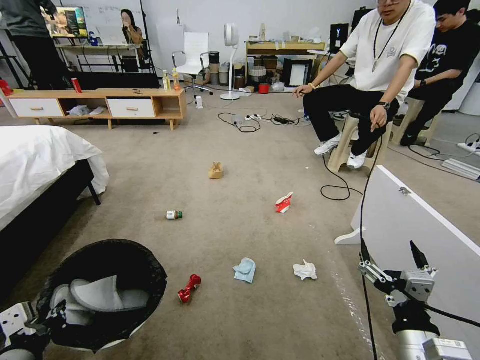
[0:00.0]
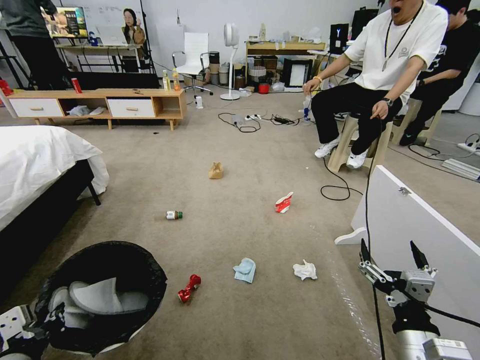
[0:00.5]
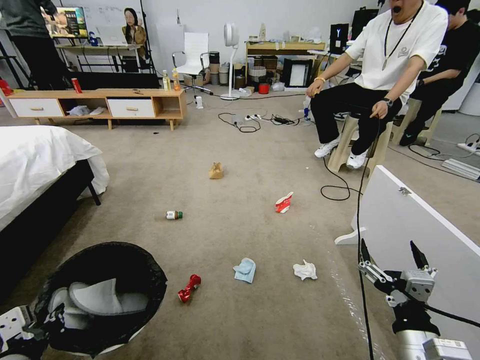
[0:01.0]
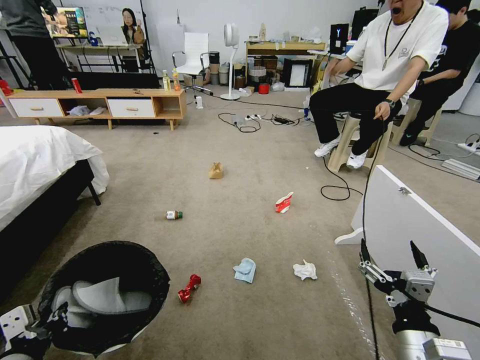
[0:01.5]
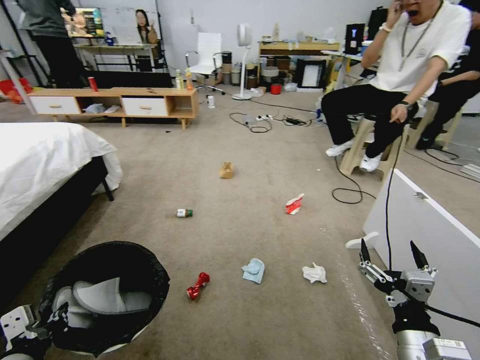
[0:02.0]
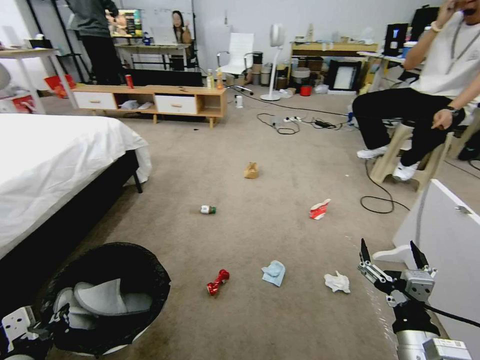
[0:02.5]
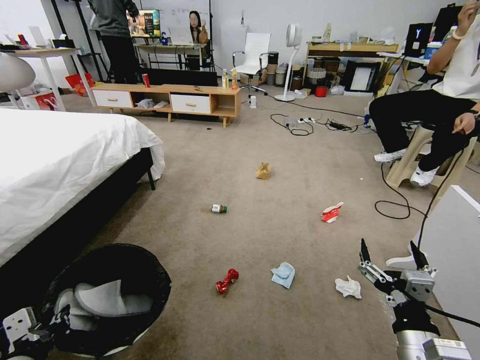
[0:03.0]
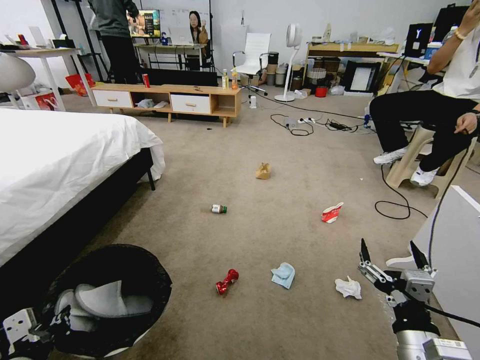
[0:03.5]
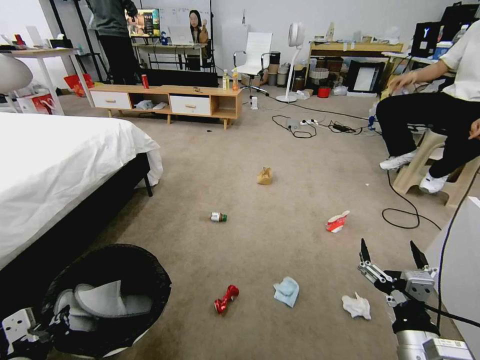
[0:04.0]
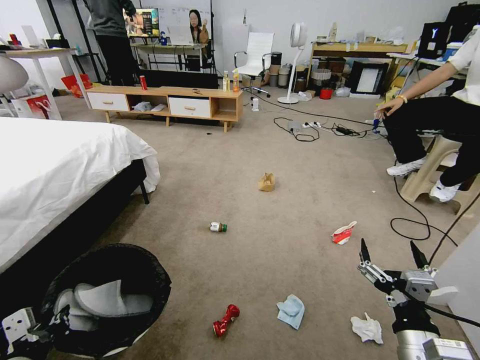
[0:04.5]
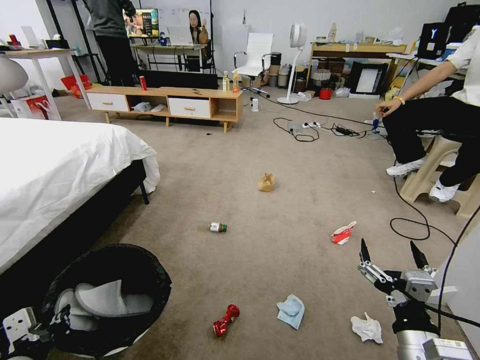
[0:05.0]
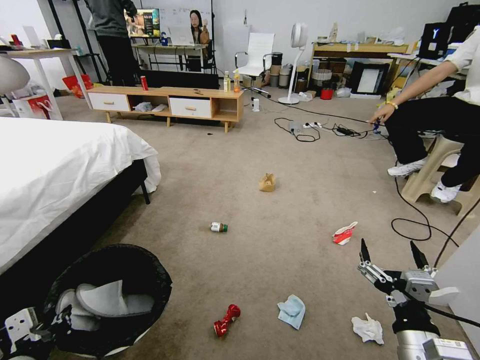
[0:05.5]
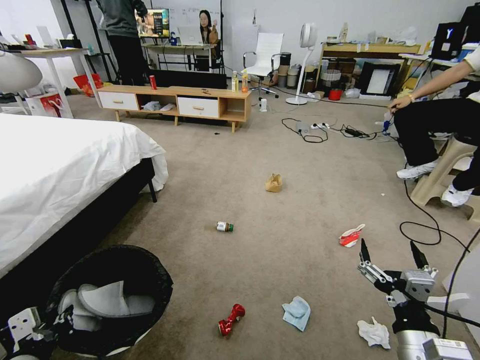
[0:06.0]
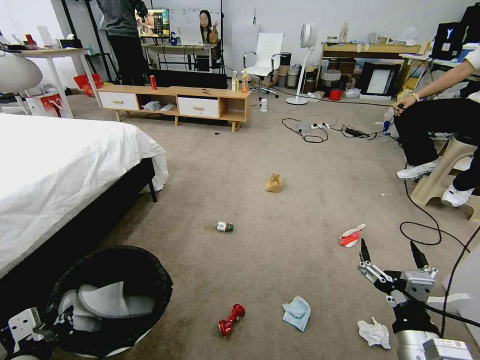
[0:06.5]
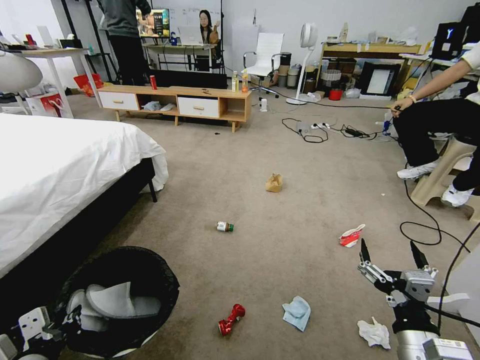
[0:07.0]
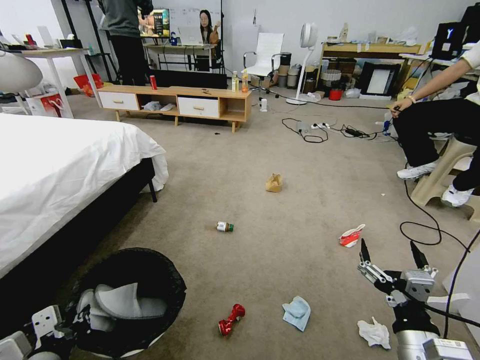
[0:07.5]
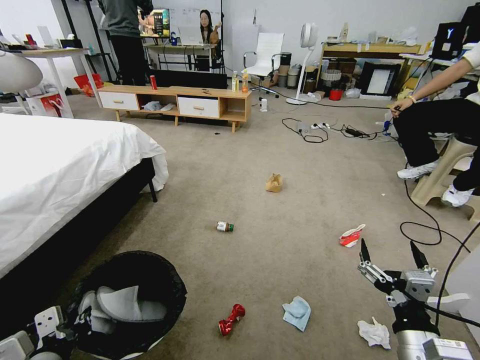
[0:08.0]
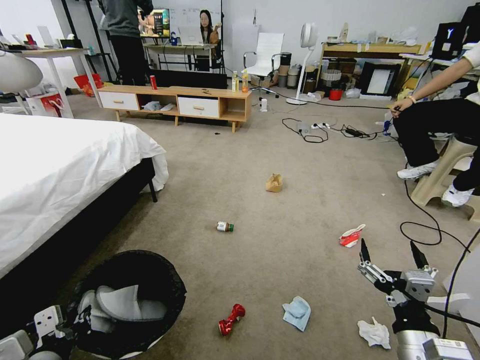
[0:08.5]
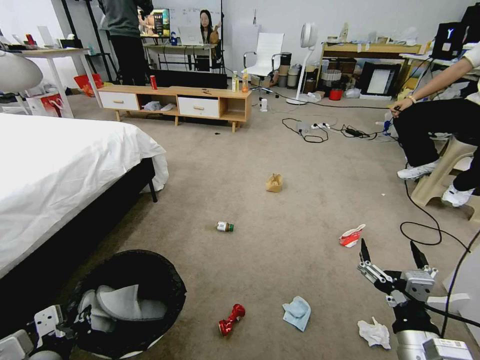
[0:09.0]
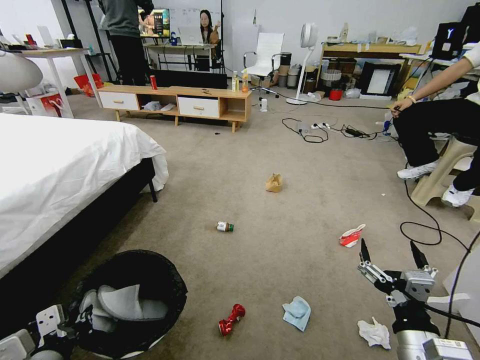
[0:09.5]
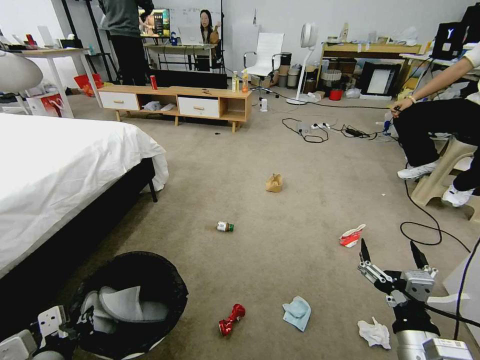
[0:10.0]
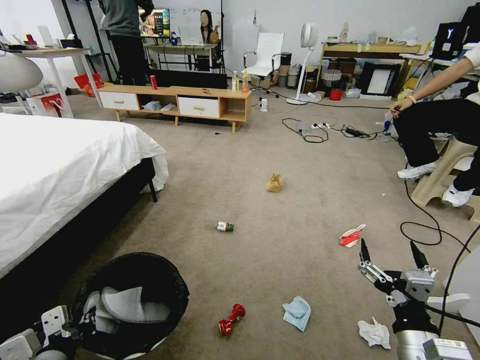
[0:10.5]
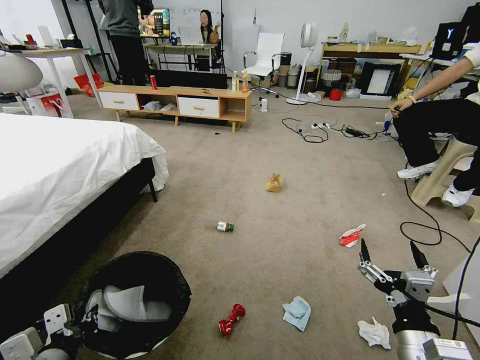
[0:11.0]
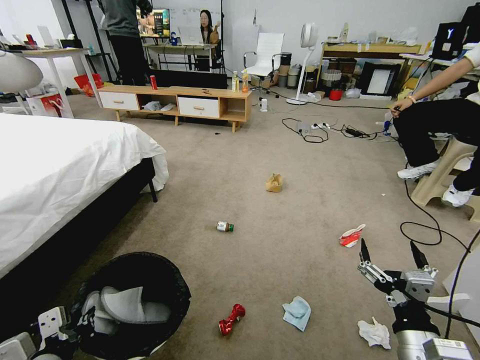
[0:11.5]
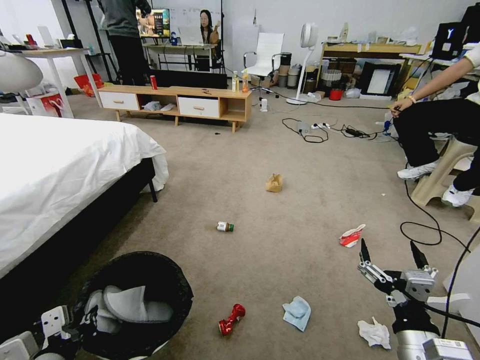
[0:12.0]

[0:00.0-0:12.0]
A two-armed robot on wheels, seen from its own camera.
Task of the whole recording: Pick up the trash bin and place the garbage on the floor into it.
0:06.0 to 0:08.0: The grippers stay close to where they were, moving slightly.
0:08.0 to 0:12.0: The two grippers keep their place.

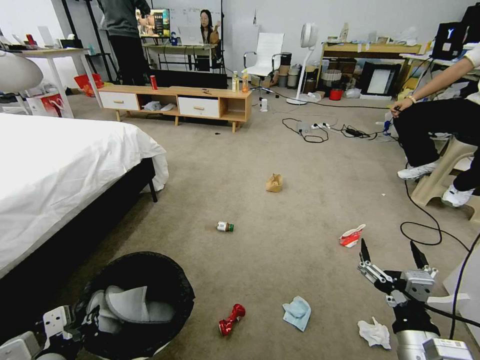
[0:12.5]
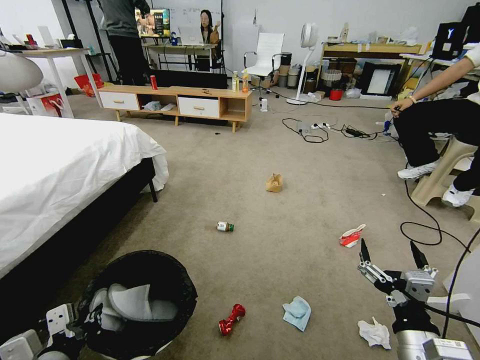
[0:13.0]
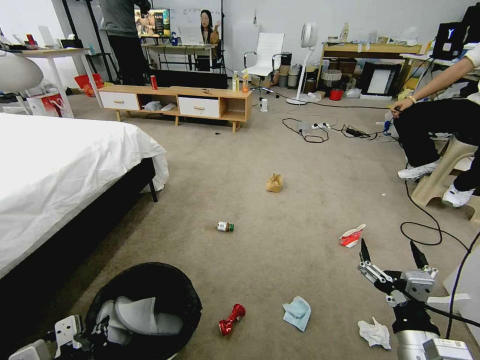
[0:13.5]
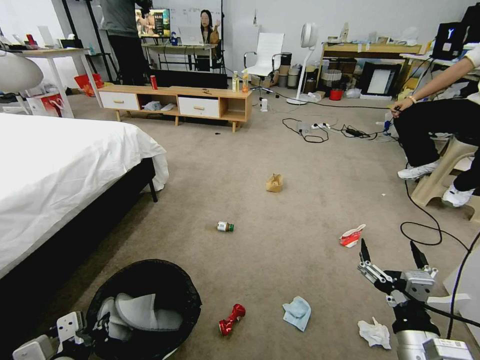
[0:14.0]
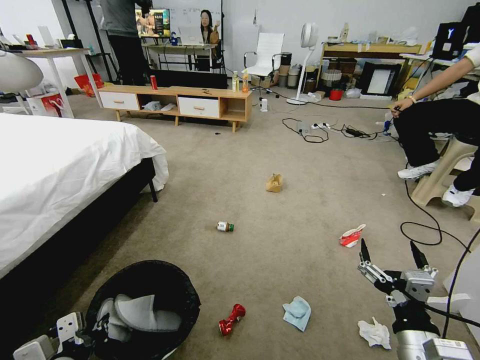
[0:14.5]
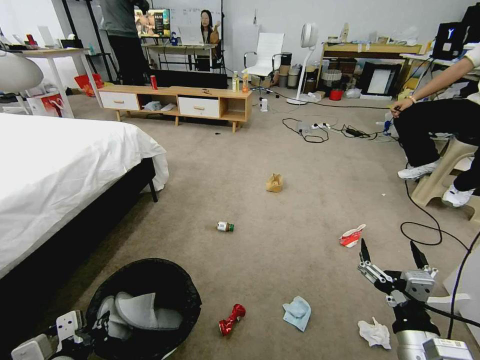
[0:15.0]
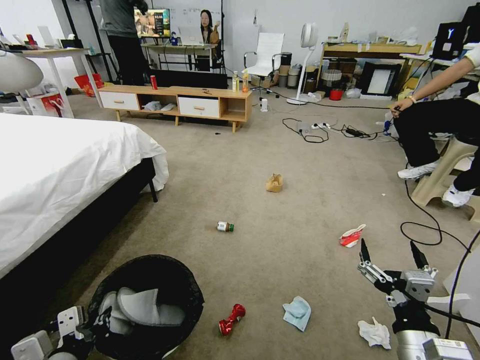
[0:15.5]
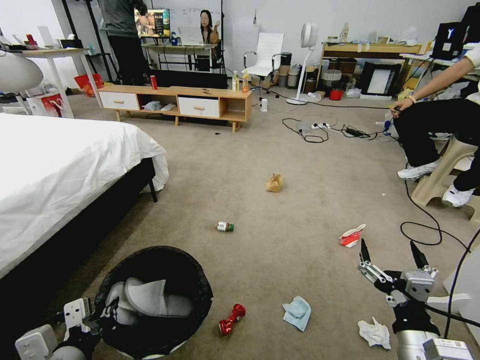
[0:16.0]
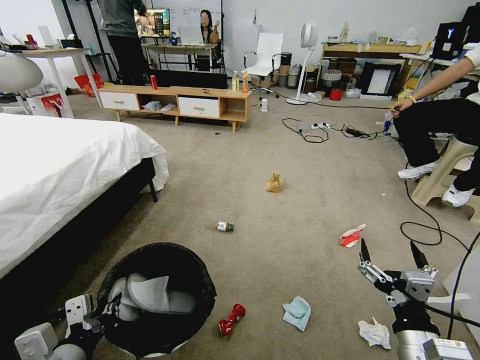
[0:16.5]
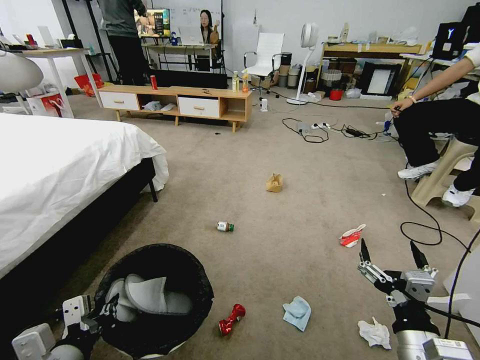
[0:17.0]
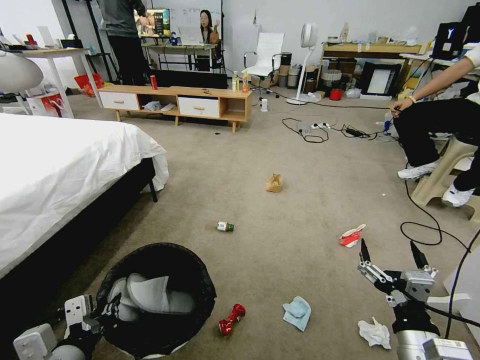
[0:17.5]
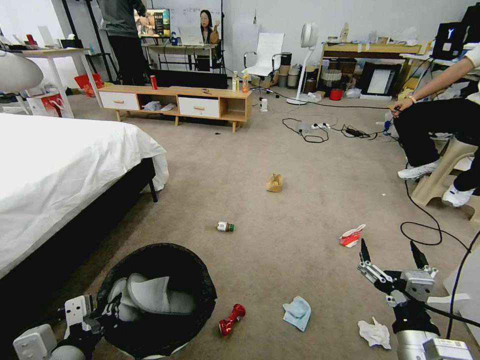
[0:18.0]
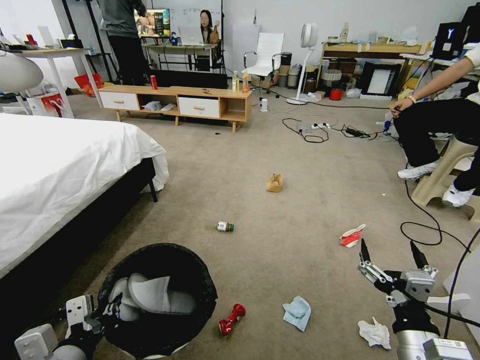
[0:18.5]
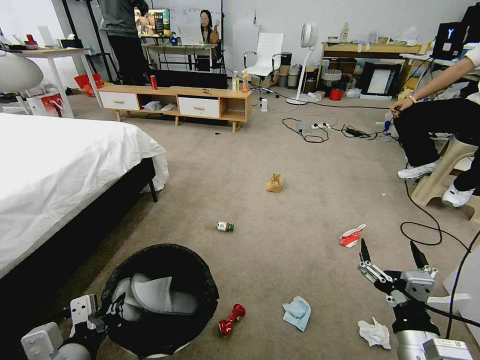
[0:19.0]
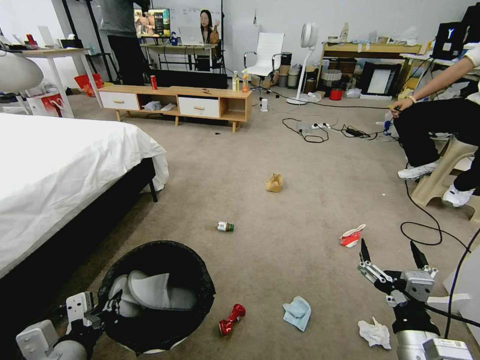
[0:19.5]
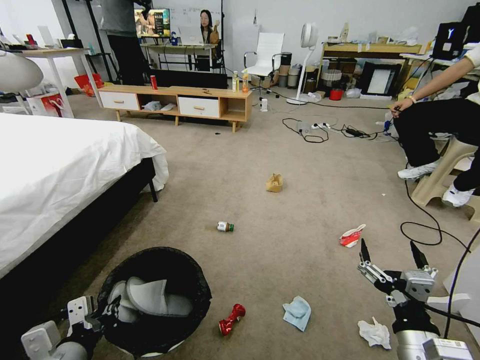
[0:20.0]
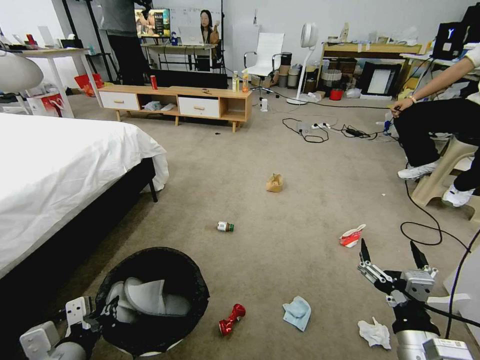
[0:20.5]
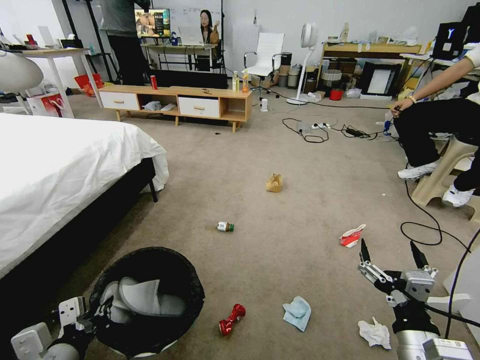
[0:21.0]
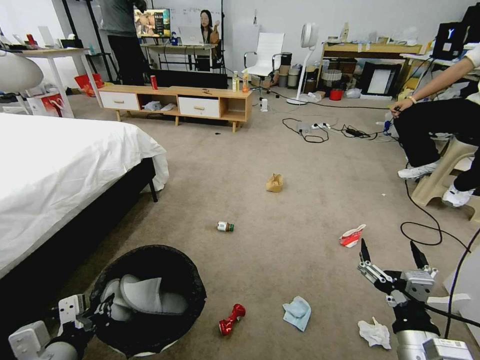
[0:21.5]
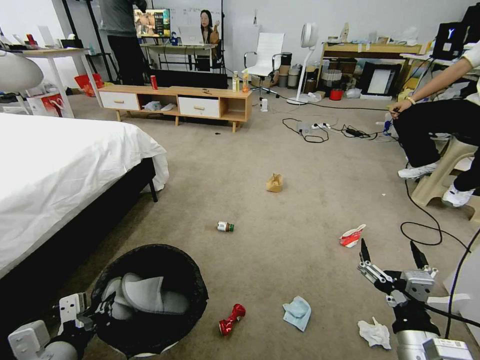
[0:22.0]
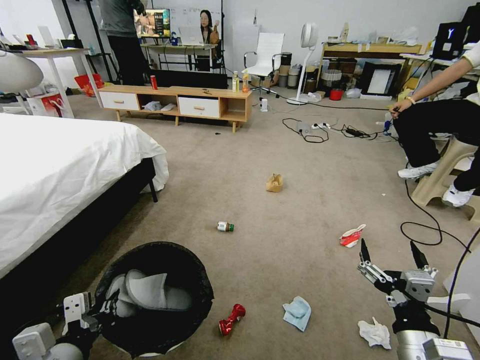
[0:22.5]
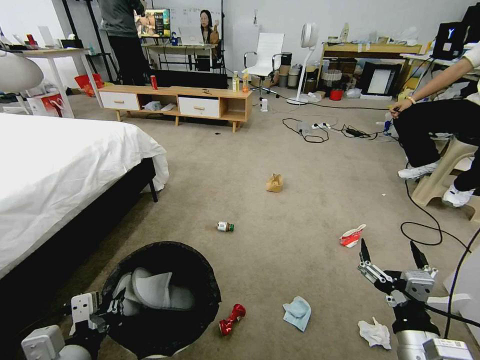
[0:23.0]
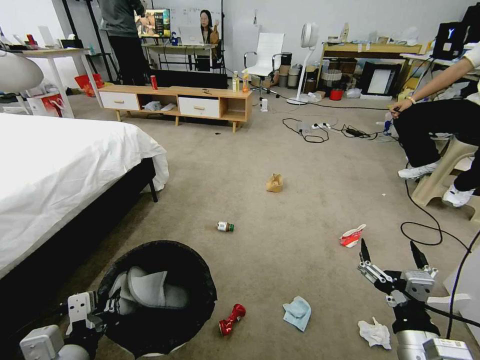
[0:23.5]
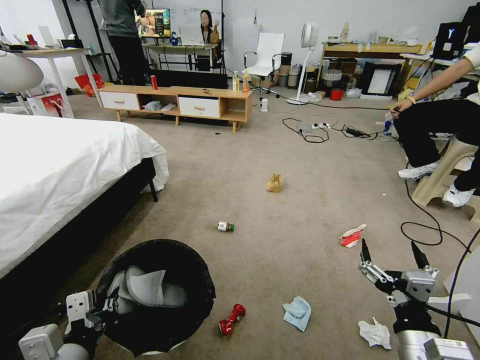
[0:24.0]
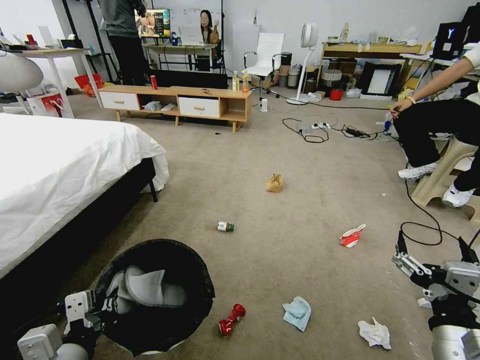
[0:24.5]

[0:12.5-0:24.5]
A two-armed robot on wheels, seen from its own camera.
Task of the whole recording: Pick up the trash bin and place the garbage on the floor into it.
0:12.5 to 0:16.5: The grippers make only small movements.
0:16.5 to 0:18.5: Neither gripper changes place.
0:18.5 to 0:22.5: There are only small adjustments of the grippers.
0:22.5 to 0:24.5: The right gripper is displaced upward by approximately 5 cm.

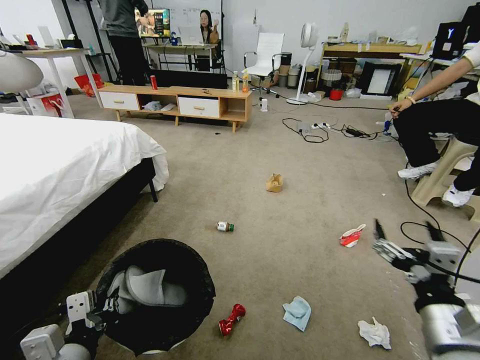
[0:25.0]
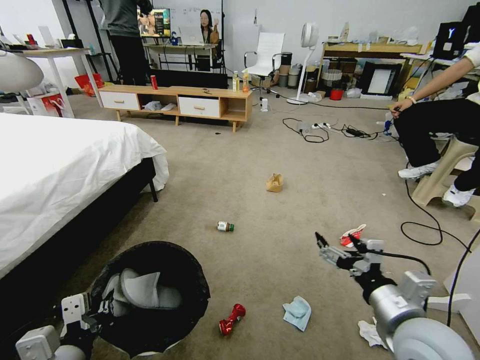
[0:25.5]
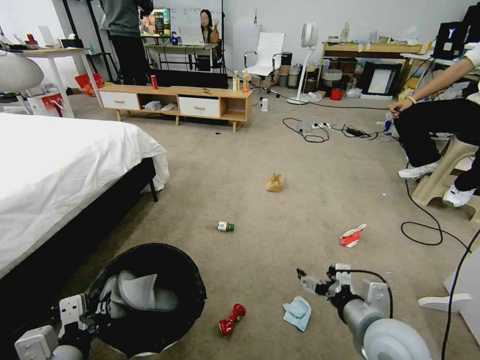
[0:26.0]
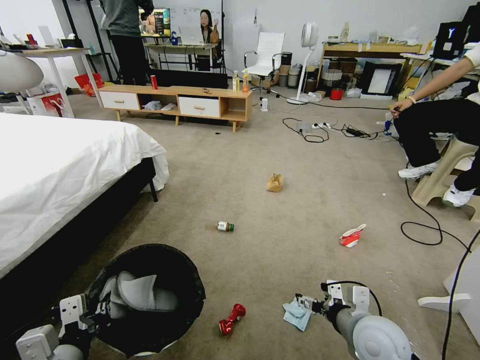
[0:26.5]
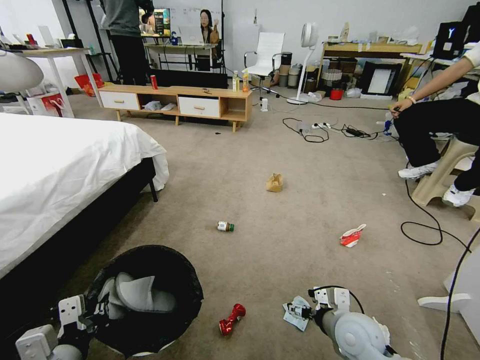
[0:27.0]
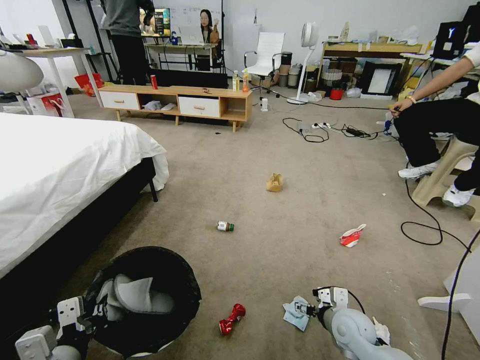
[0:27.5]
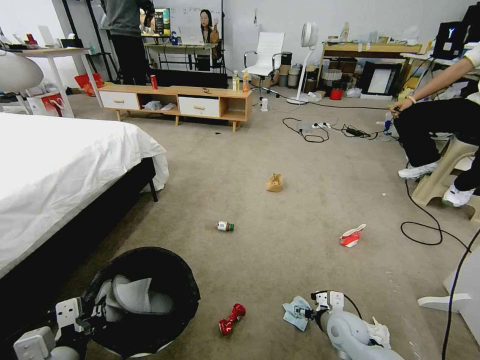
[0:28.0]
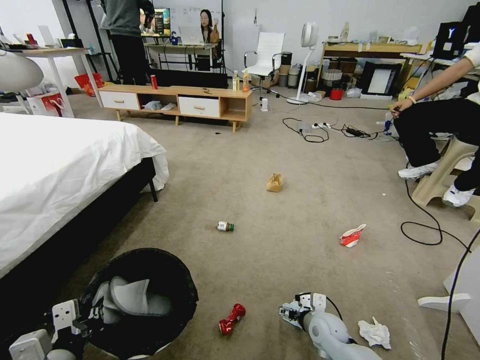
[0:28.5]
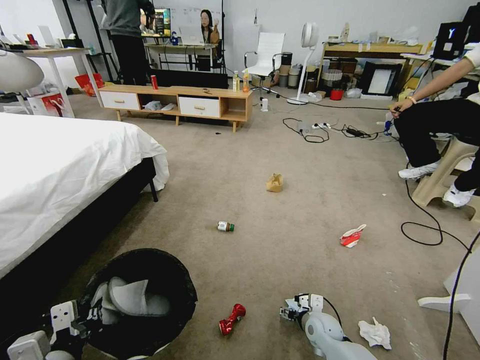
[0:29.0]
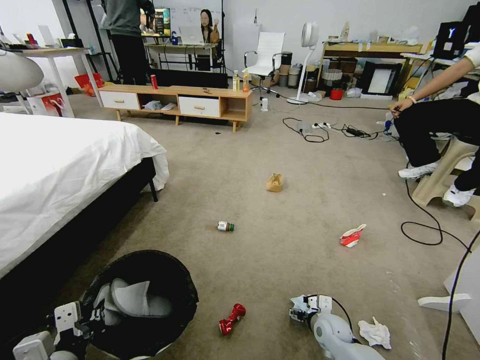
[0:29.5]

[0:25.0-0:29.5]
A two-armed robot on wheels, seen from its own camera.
Task of the whole recording: Pick up the trash bin and place the garbage on the floor into it.
0:25.0 to 0:27.0: The right gripper moves downward and forward, roughly 20 cm.
0:27.0 to 0:29.5: The right gripper moves downward and forward, approximately 15 cm.
